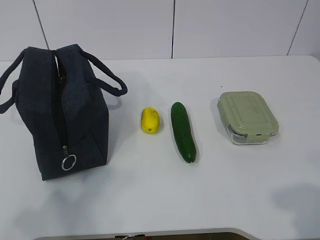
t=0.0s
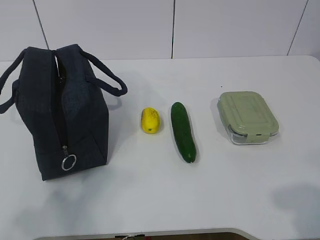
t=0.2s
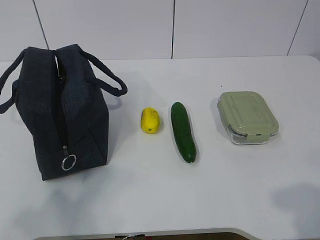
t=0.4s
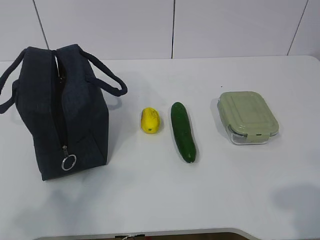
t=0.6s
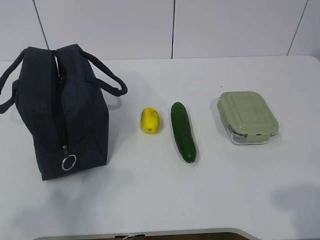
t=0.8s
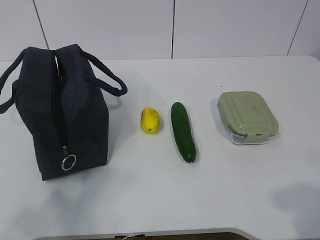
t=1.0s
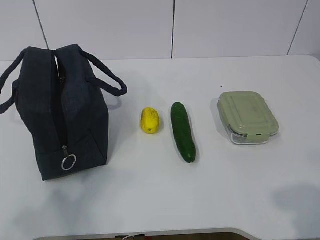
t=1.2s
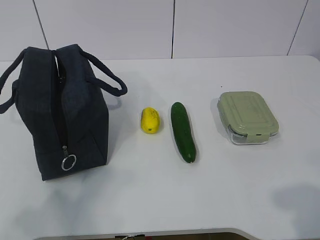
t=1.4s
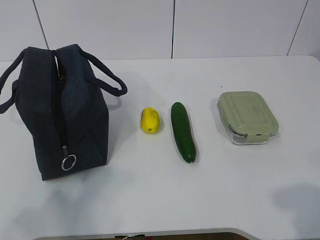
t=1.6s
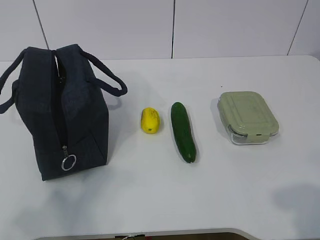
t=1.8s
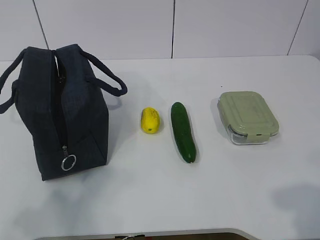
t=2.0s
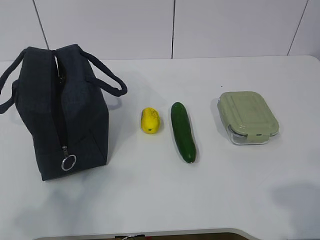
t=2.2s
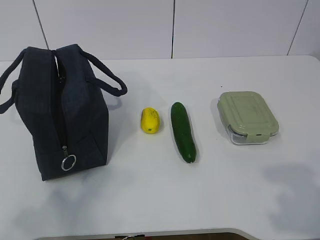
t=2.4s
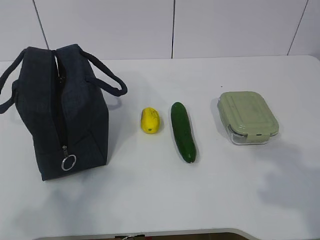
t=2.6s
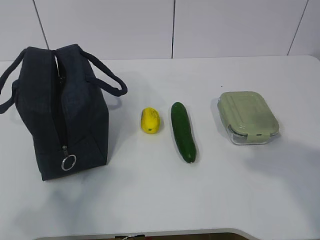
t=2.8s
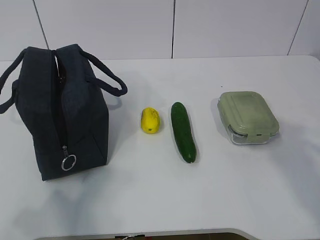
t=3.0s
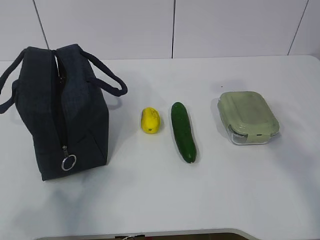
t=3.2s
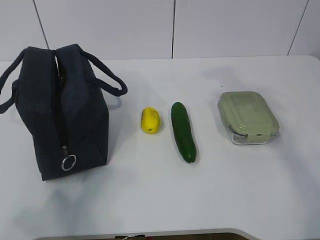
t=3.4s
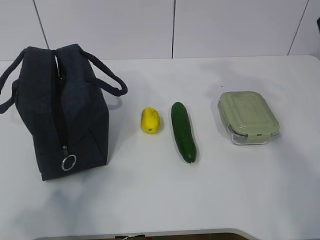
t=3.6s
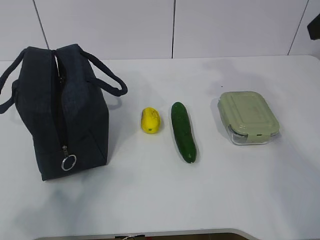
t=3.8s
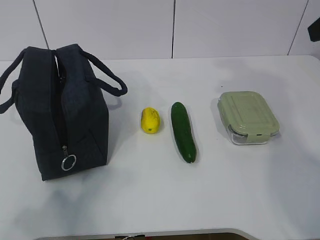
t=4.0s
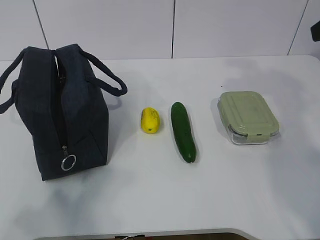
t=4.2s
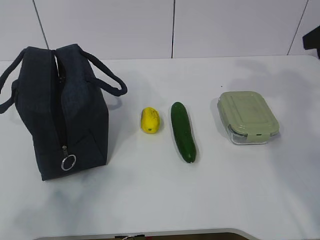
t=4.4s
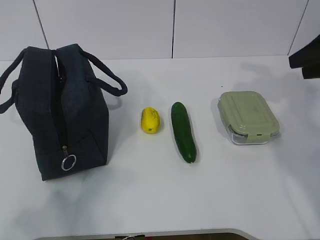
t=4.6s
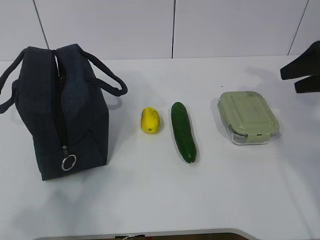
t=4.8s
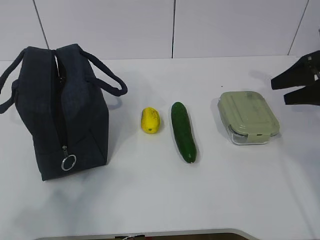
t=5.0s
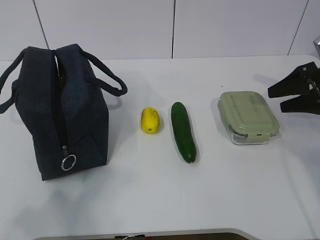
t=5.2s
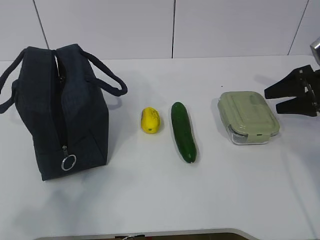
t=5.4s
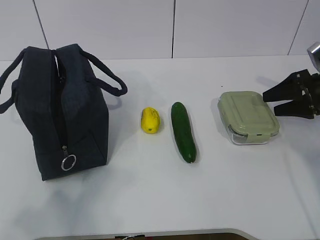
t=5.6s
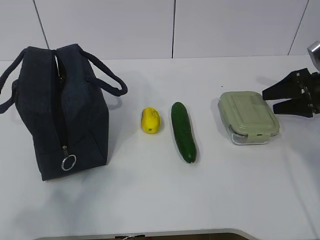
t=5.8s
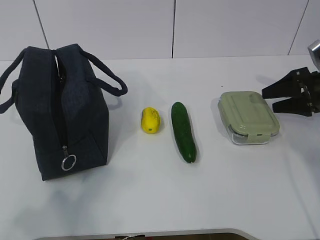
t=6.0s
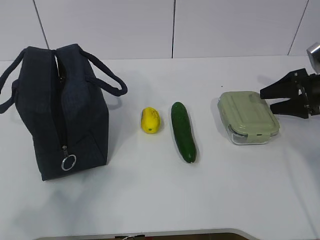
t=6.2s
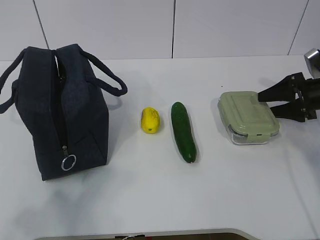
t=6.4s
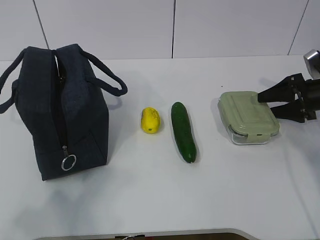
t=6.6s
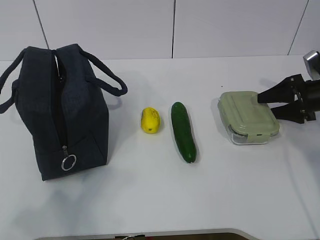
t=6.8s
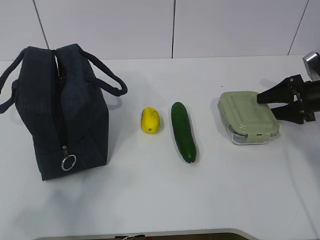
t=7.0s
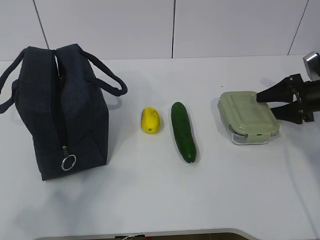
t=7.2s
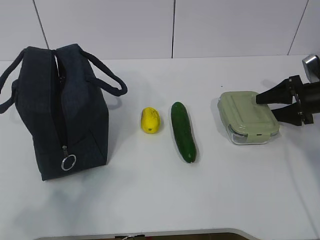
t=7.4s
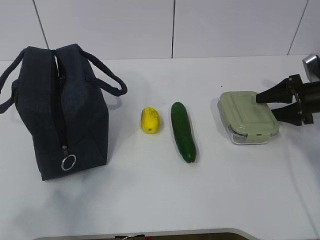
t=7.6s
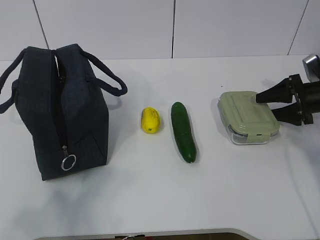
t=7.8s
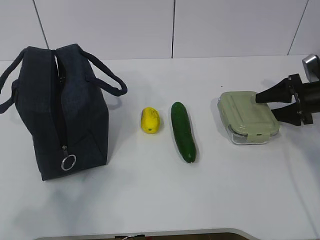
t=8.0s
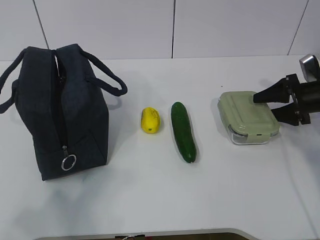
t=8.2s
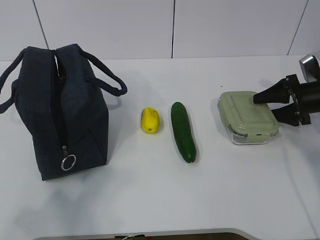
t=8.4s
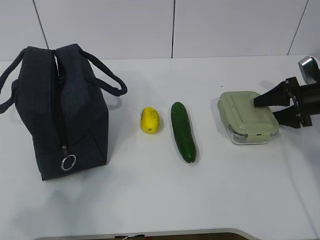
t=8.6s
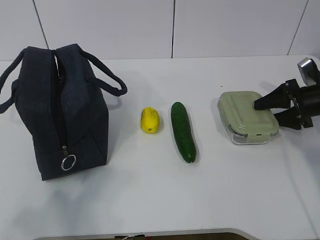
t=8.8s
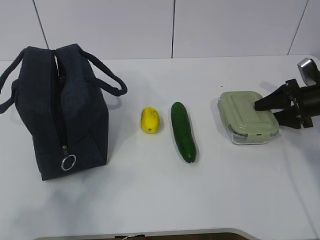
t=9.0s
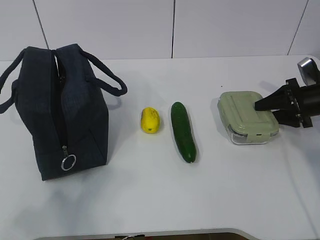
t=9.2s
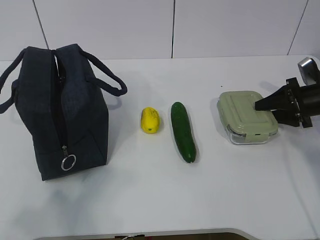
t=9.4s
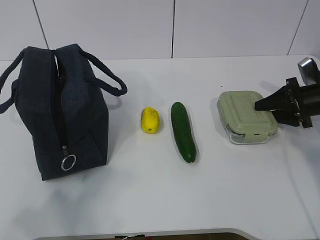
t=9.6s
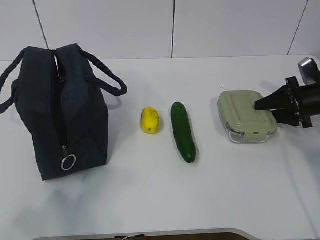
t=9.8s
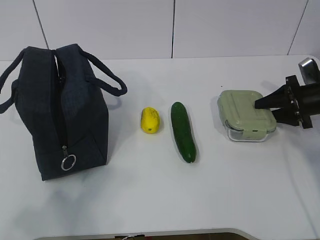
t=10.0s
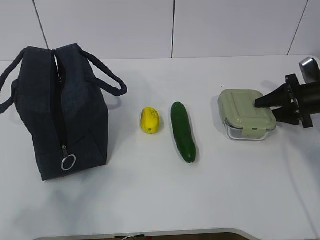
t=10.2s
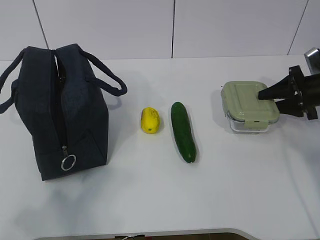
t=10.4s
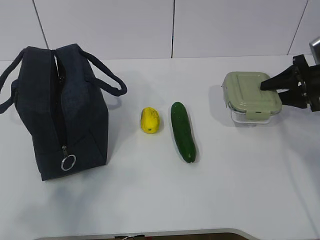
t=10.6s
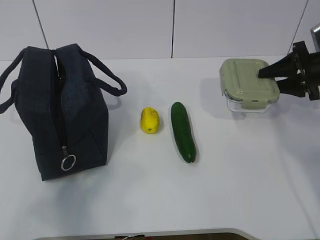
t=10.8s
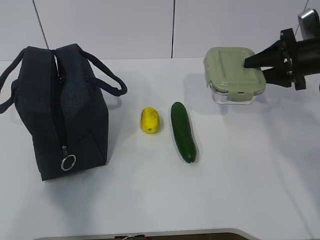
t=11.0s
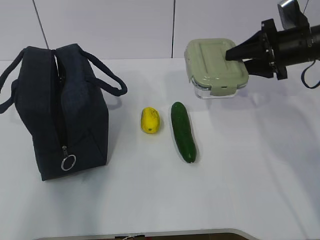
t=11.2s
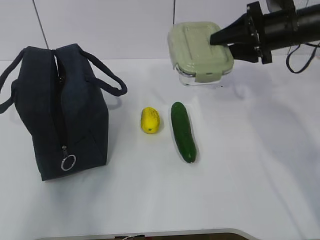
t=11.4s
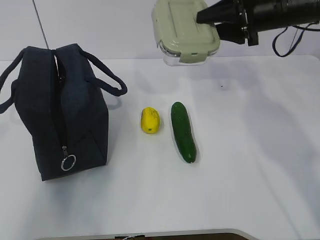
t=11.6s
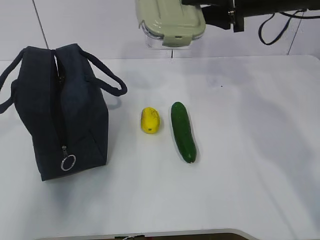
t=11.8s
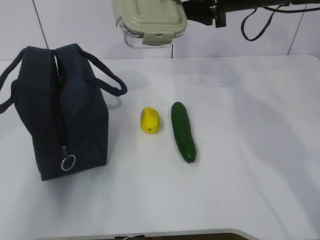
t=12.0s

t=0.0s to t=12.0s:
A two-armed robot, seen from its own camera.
Step, t=0.0s to t=8.4s: Grab the lunch box with your right hand.
Step, t=8.6s to t=11.2s: Grab the lunch bag with your left hand.
t=1.6s to t=3.0s: The right gripper heads forward and upward, covering roughly 15 cm.
t=3.0s to t=4.4s: The right gripper shifts approximately 20 cm forward.
t=4.4s to t=6.0s: The right gripper is displaced downward and forward by about 20 cm.
t=6.0s to t=7.6s: The grippers stay close to where they were, moving slightly.
t=7.6s to t=9.0s: Neither gripper changes place.
t=9.0s to t=10.4s: The grippers stay close to where they were, moving slightly.
t=10.4s to t=12.0s: The left gripper is displaced forward by some 20 cm. Meanwhile the right gripper shifts roughly 25 cm to the left and upward.

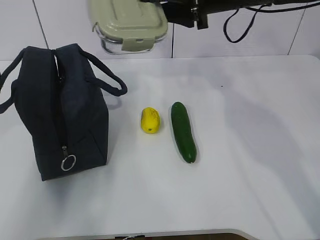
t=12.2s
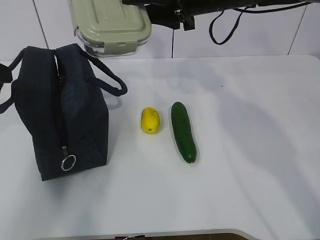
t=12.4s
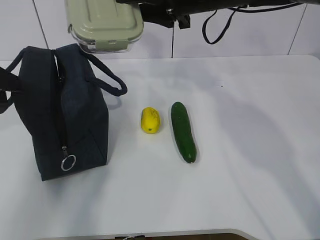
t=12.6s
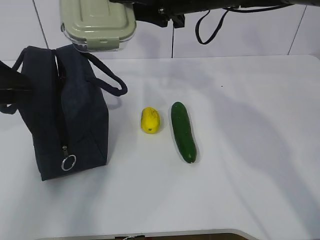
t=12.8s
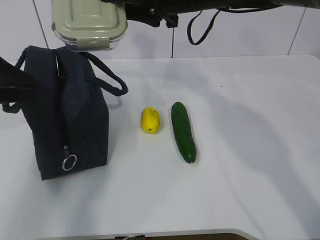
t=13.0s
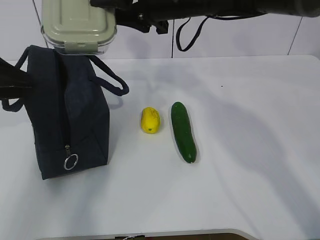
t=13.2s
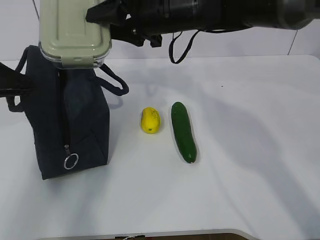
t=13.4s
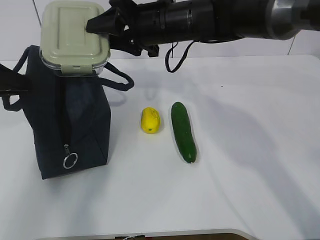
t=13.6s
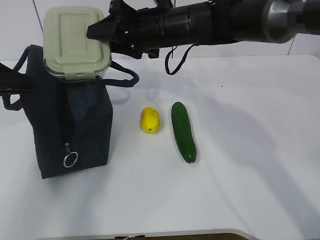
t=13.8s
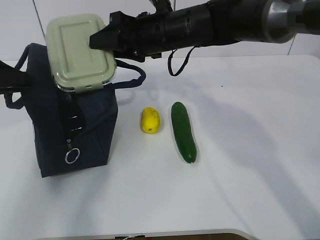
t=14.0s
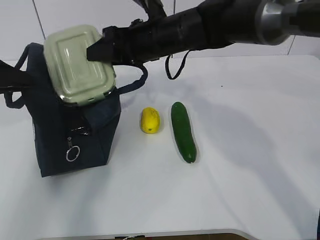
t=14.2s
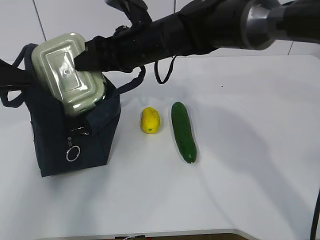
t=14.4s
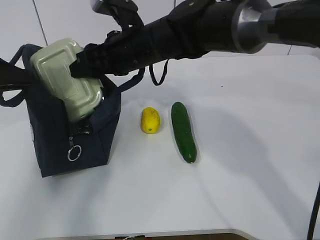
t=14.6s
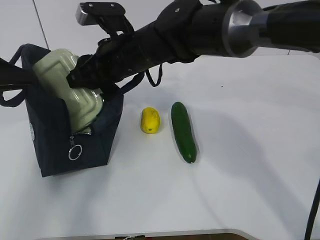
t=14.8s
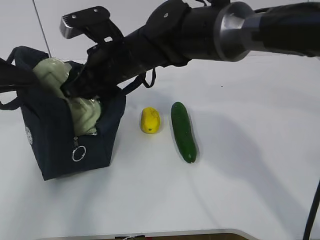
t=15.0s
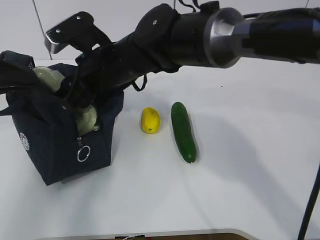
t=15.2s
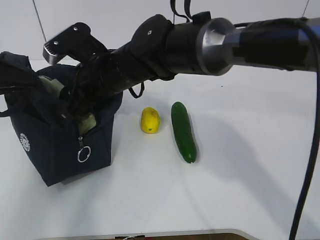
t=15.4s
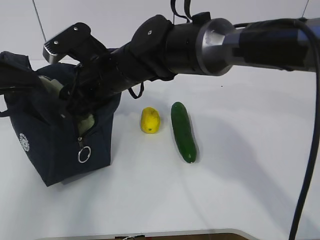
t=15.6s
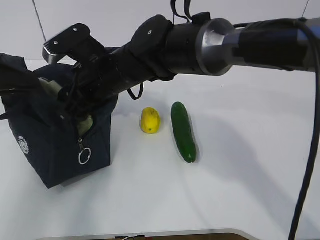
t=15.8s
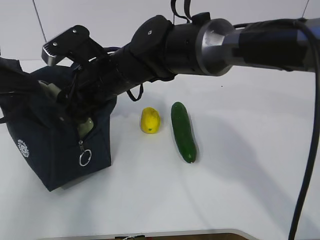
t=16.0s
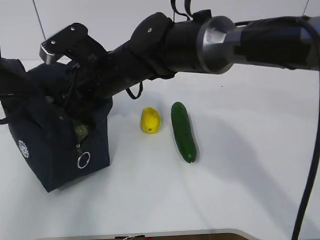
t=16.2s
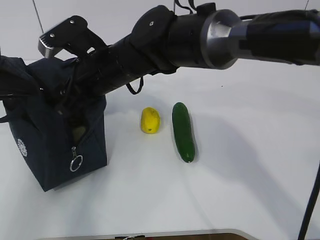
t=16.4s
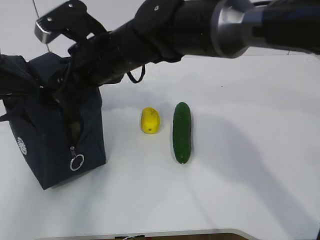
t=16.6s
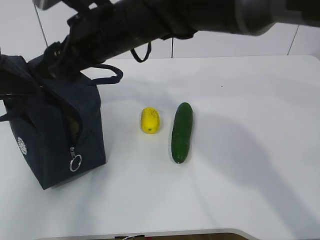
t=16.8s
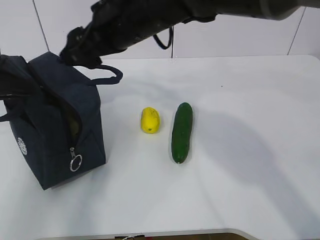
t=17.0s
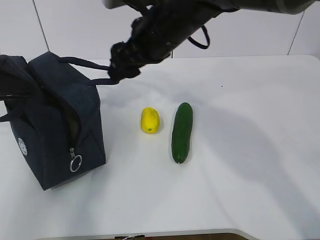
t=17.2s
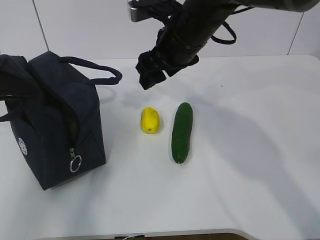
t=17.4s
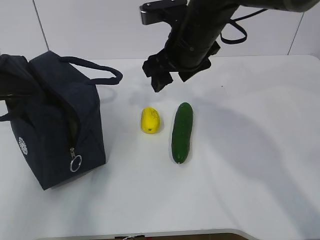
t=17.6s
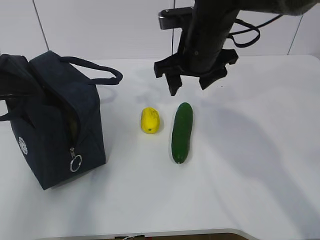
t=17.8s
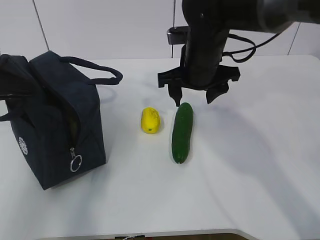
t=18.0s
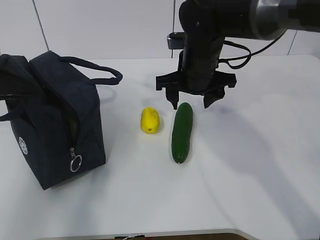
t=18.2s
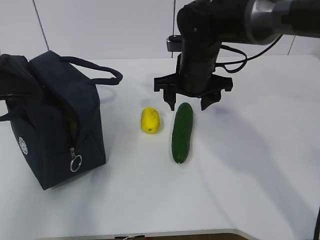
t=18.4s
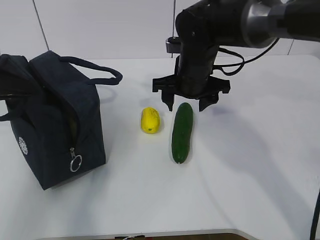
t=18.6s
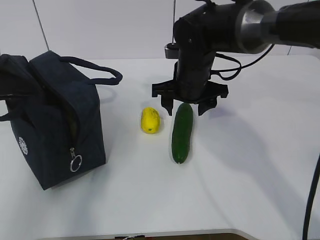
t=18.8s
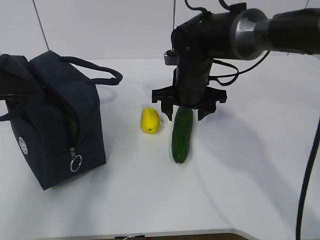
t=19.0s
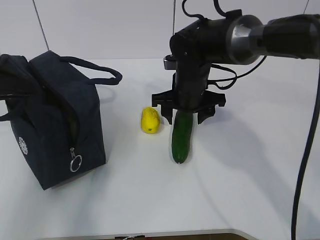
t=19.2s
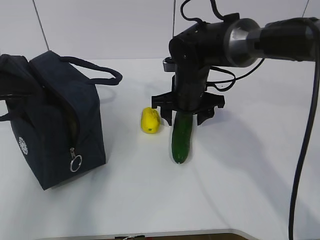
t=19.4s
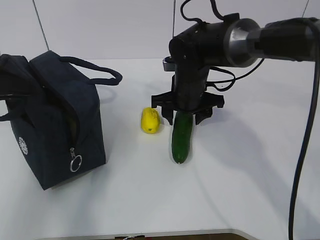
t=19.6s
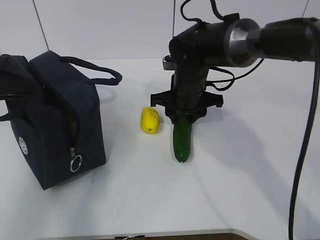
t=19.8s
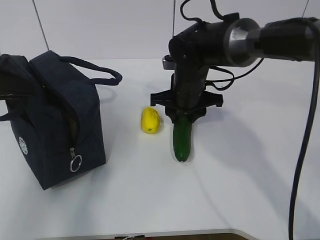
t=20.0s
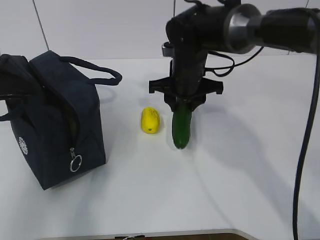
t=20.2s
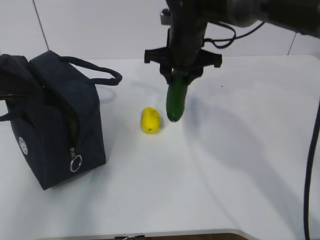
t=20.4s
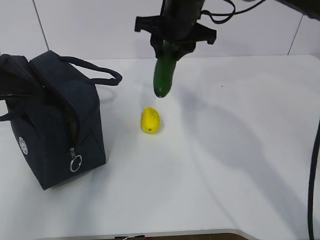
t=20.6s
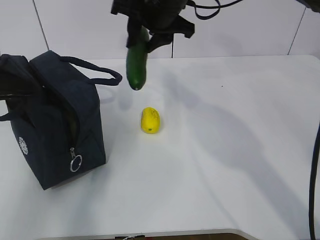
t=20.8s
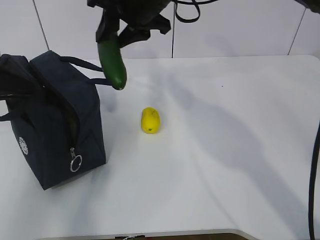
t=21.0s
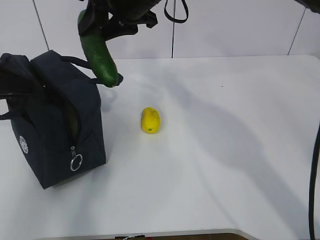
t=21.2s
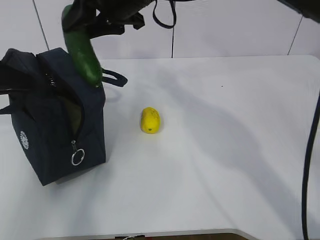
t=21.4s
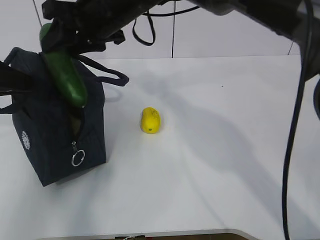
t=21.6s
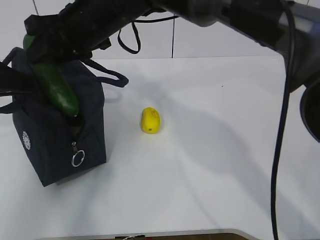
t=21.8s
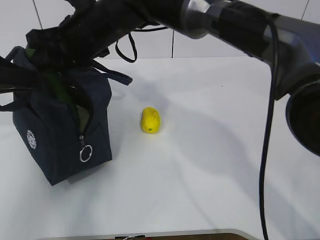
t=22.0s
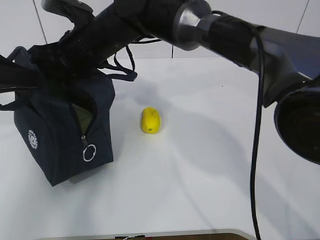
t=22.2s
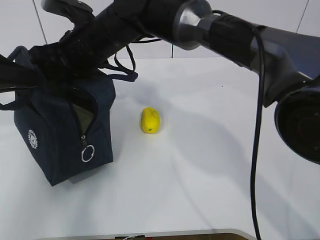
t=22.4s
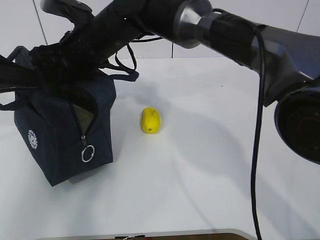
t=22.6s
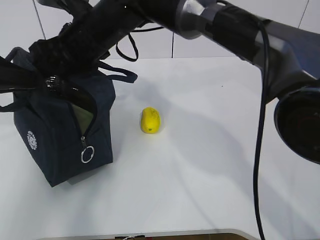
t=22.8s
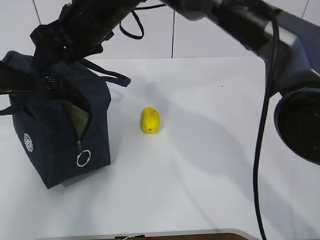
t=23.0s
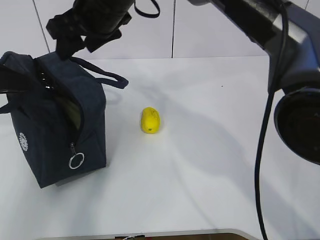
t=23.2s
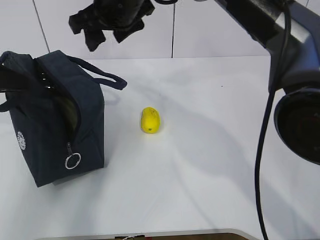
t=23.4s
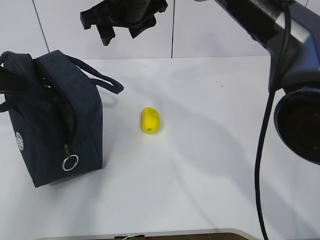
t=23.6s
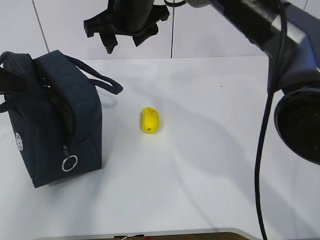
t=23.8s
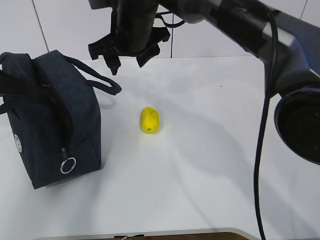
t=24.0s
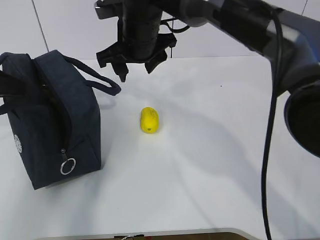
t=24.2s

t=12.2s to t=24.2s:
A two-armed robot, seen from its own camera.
Step, t=12.2s to t=13.6s: Place it into the bag with your right hand.
Step, t=13.8s to t=16.6s: Grab the cucumber with your right hand.
Step, t=16.8s to t=18.6s: Place it into the bag with your right hand.
Step, t=19.0s to t=23.0s: Grab the lemon with your right hand.
t=12.2s to t=13.8s: The right gripper is displaced to the left and downward by roughly 10 cm. The left gripper is displaced forward by some 5 cm, and closes.
t=13.8s to t=15.2s: The right gripper travels to the left and backward by about 10 cm.
t=15.2s to t=16.6s: The grippers move only a little.
t=16.6s to t=18.2s: The right gripper shifts roughly 15 cm to the right.
t=18.2s to t=19.8s: The right gripper travels downward by approximately 5 cm.
t=19.8s to t=21.2s: The right gripper heads upward and to the left, covering some 20 cm.
t=21.2s to t=22.6s: The right gripper heads to the left and downward, covering roughly 10 cm.
t=22.6s to t=24.2s: The right gripper moves to the right, some 5 cm.
